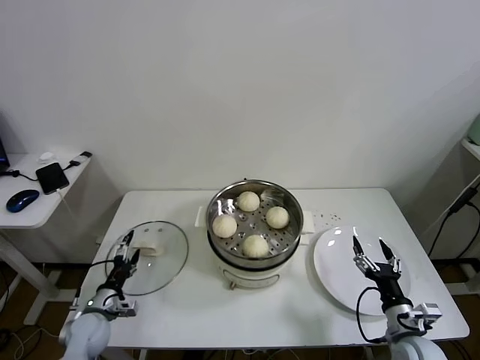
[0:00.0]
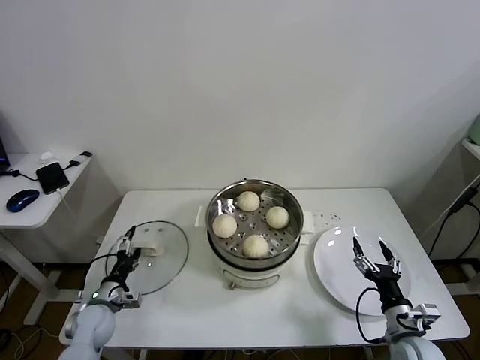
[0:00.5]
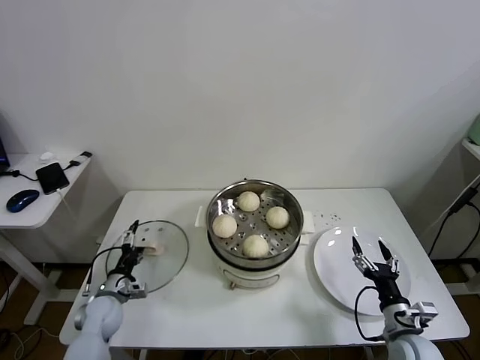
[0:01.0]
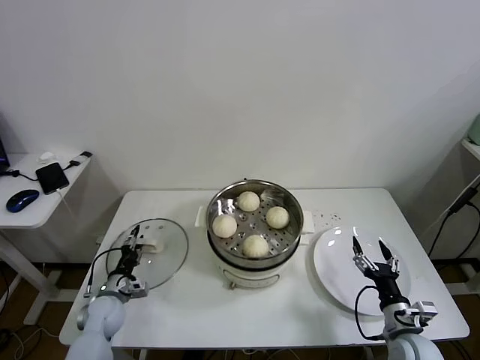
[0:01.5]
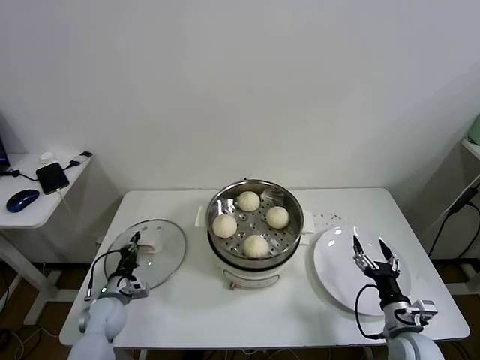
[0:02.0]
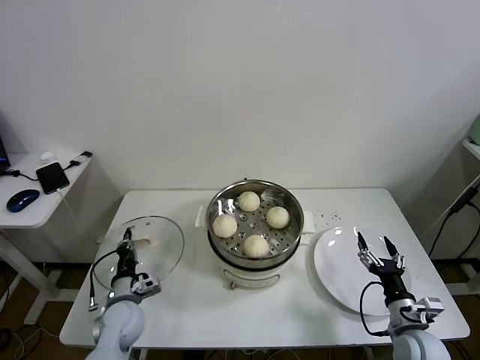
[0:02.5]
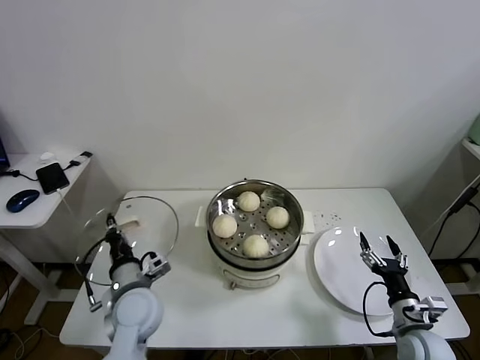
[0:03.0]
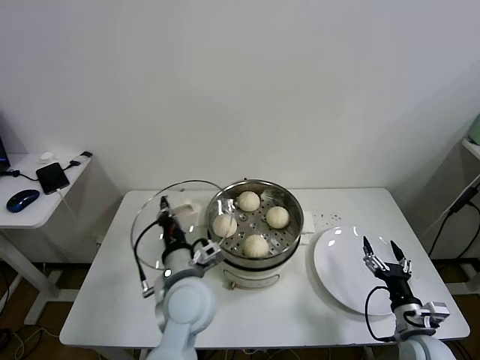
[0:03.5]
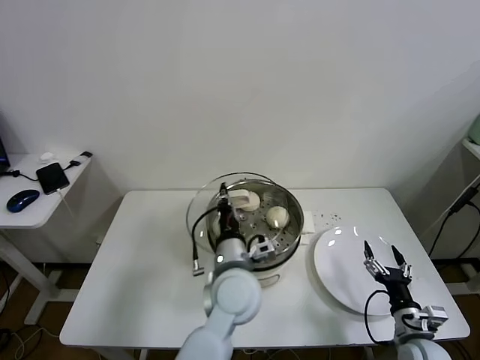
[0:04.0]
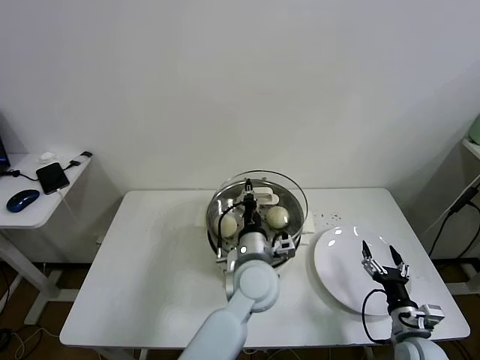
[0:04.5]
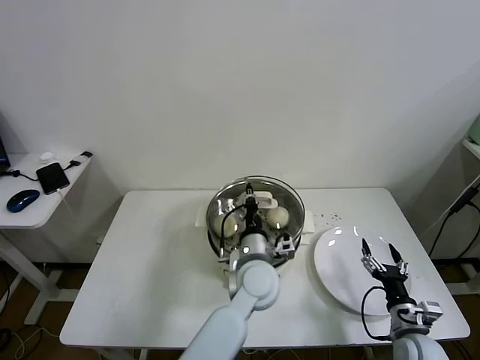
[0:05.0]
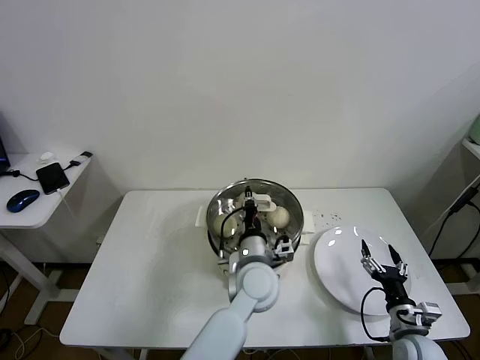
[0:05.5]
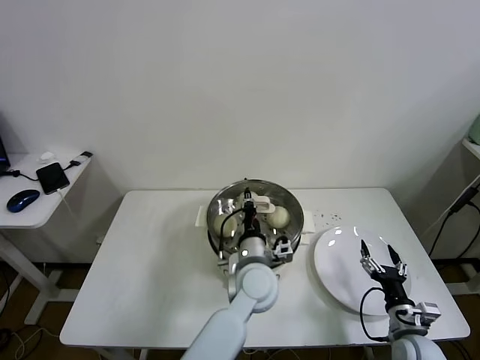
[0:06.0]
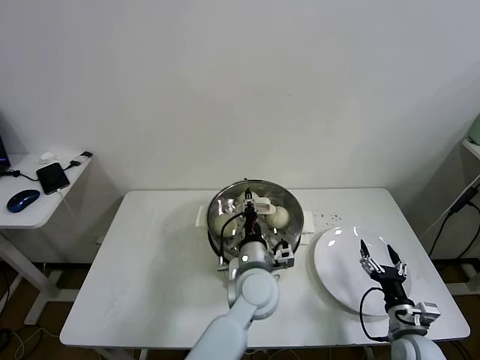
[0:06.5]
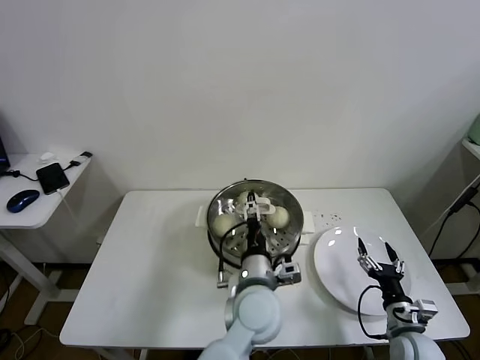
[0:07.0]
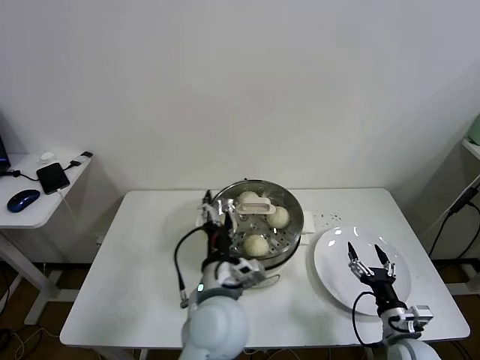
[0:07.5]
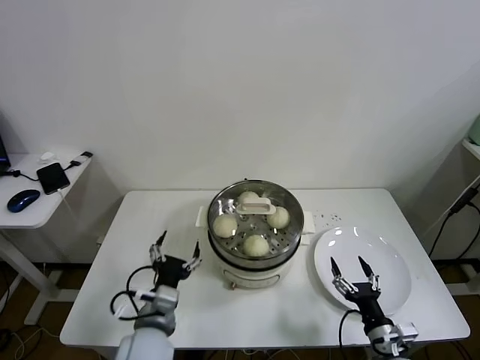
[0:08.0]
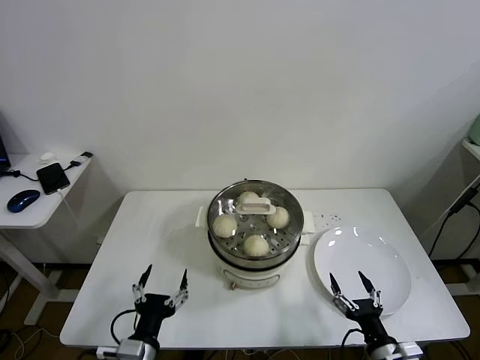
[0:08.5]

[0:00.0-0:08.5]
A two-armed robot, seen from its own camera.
Task of the whole recording: take steamed baozi put them in steamer.
Step, 0:02.0 to 0:06.5: Place the pot lid on the steamer with left gripper.
0:00.0 to 0:02.0: The left gripper changes place by about 5 cm, and closes.
0:02.0 to 0:04.0: The left gripper shifts roughly 40 cm to the right and upward.
0:04.0 to 0:06.5: The left gripper shifts approximately 5 cm downward.
0:06.5 to 0:08.5: The left gripper goes about 30 cm to the left and backward, and opens up. Meanwhile the right gripper is displaced backward and to the left by roughly 10 cm.

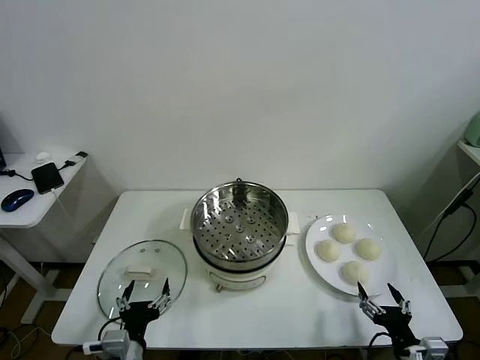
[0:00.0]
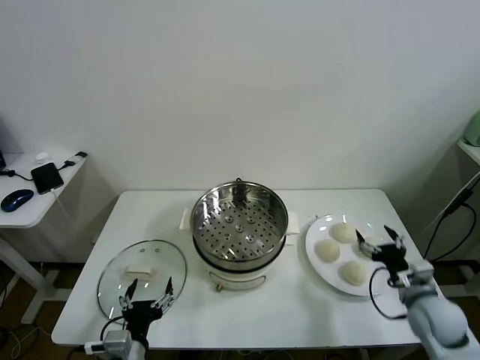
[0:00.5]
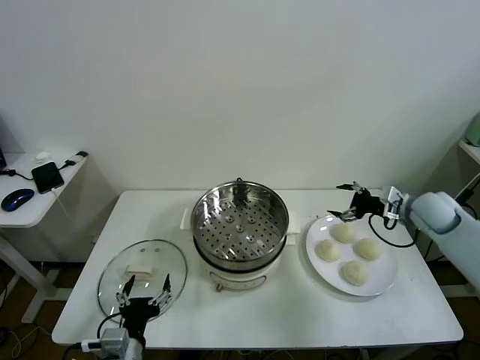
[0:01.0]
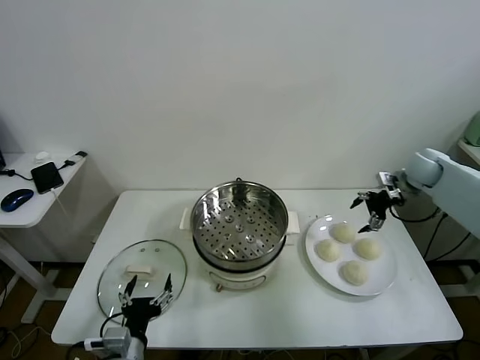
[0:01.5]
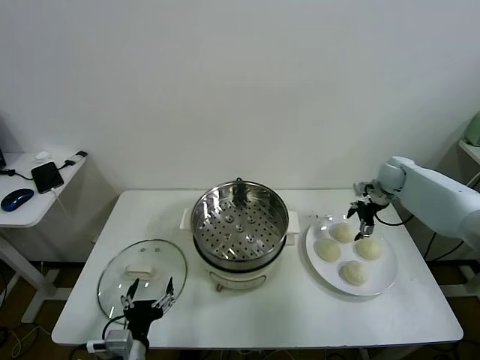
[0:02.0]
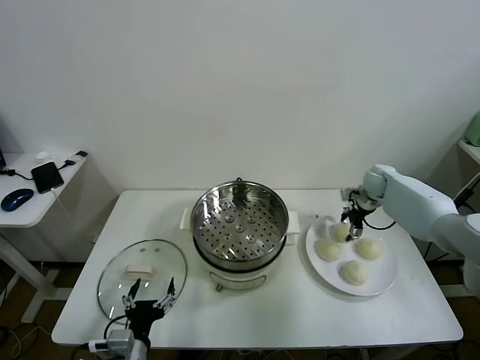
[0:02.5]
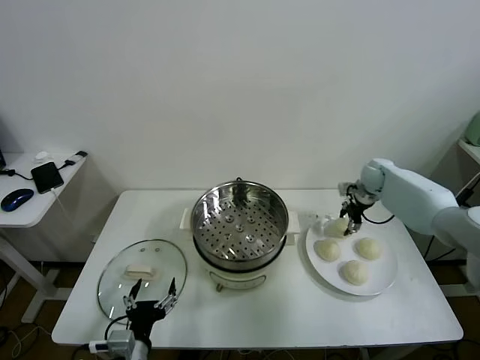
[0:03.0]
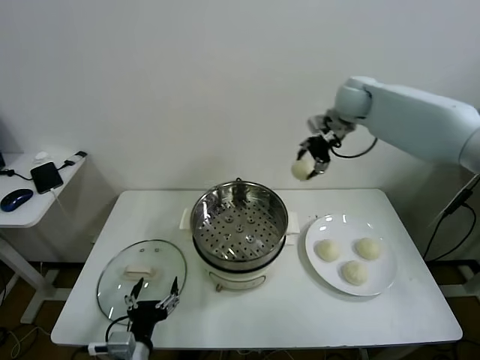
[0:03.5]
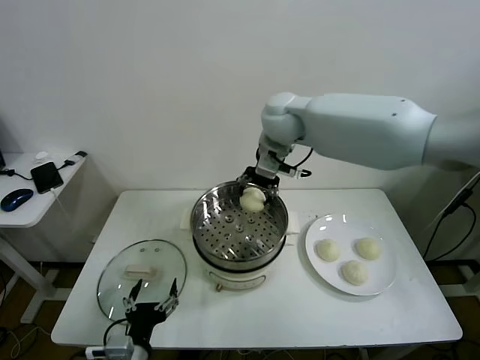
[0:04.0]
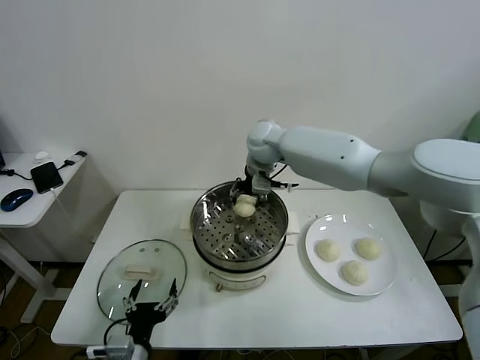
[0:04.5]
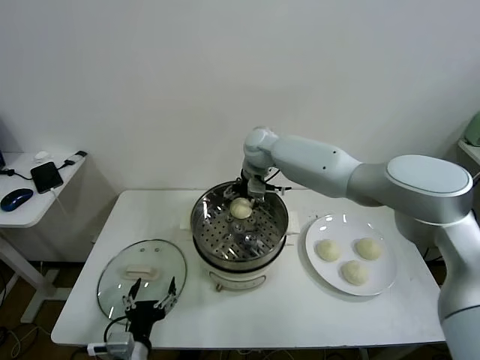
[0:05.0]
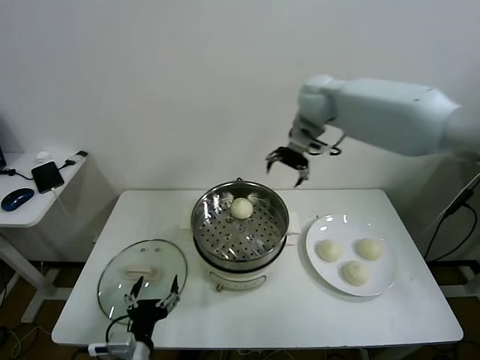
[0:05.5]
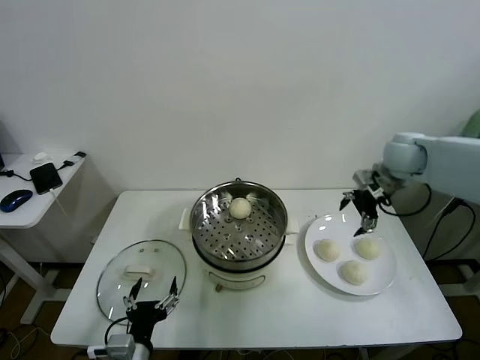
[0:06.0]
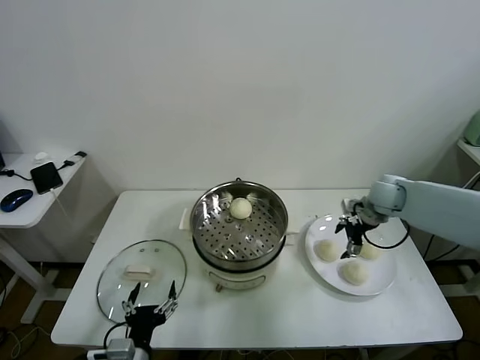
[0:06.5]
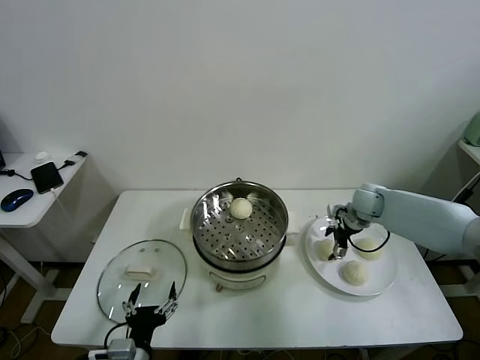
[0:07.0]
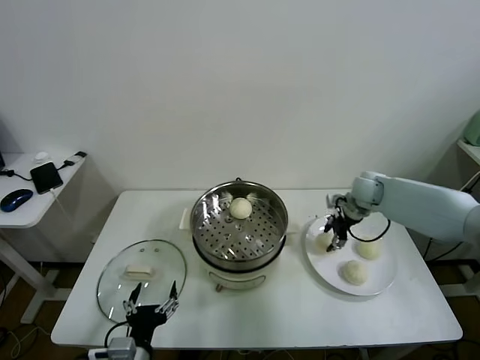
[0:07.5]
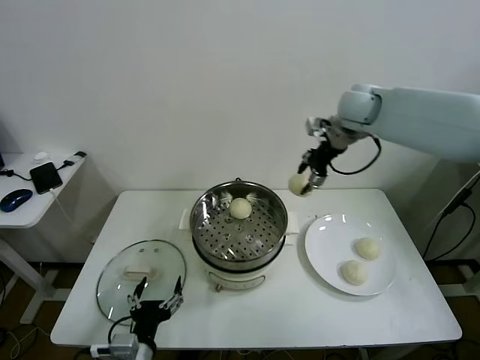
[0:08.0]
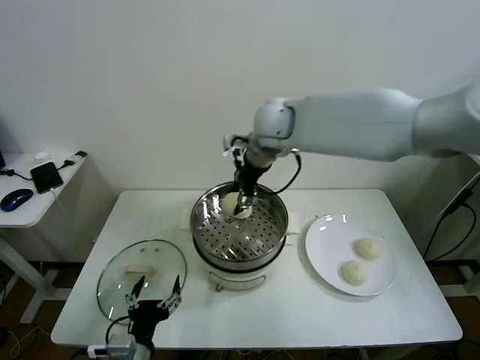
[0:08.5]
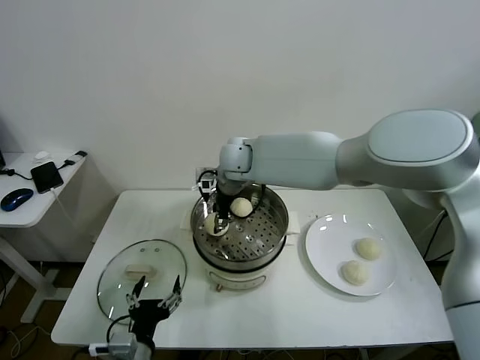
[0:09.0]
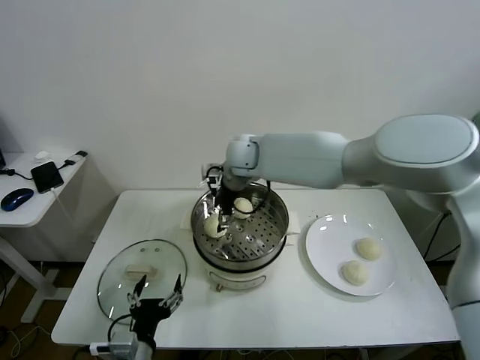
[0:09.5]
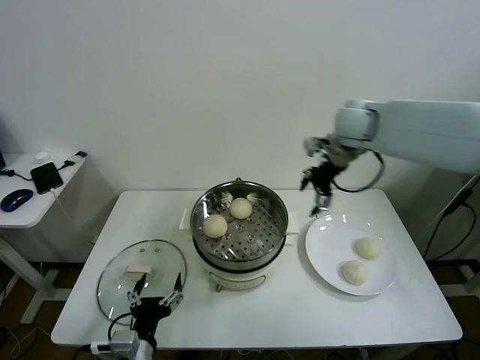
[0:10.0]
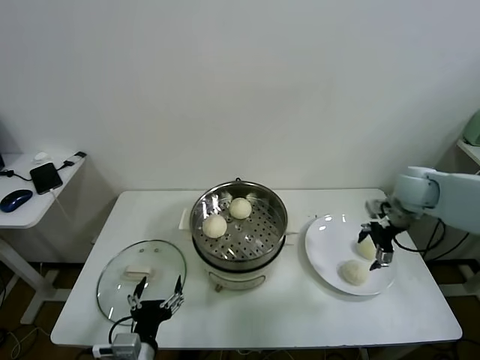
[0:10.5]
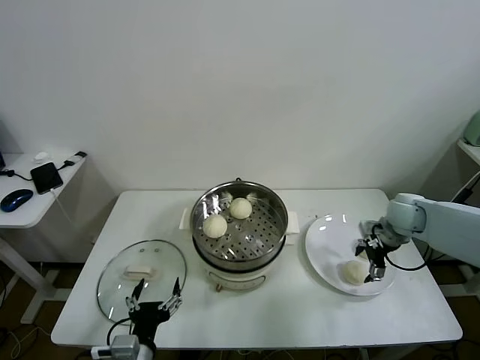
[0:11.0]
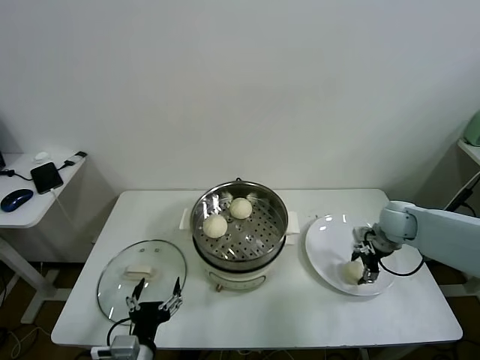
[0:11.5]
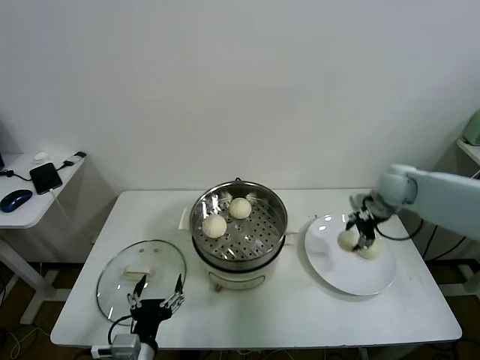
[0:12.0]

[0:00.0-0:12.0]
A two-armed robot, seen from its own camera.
Task of the whole recording: take steamed baozi put them in steamer.
Step, 0:00.0 to 0:02.5: Grasp the baozi in the plate with right gripper.
Step, 0:03.0 to 0:04.5: Place the baozi on the steamer with right gripper.
Step, 0:05.0 to 0:07.0: Grasp the baozi in the plate with right gripper.
Step, 0:07.5 to 0:09.0: Place the baozi on the steamer with right gripper.
Step, 0:09.5 to 0:11.5: Grasp the baozi in the plate with right gripper.
0:02.0 to 0:04.0: The right gripper is displaced to the left and upward by some 40 cm, and closes up.
0:04.0 to 0:06.0: The right gripper heads to the right, covering roughly 30 cm, and opens its fingers.
0:06.0 to 0:08.0: The right gripper shifts approximately 20 cm to the left and upward, and closes.
0:08.0 to 0:10.0: The right gripper heads downward, covering about 5 cm, goes to the left and returns, about 25 cm each way, and opens its fingers.
0:10.0 to 0:12.0: The right gripper shifts about 15 cm downward and to the right, and closes up.

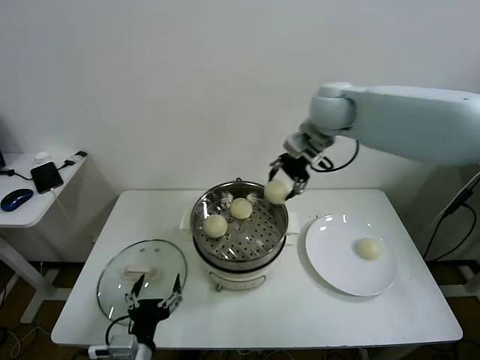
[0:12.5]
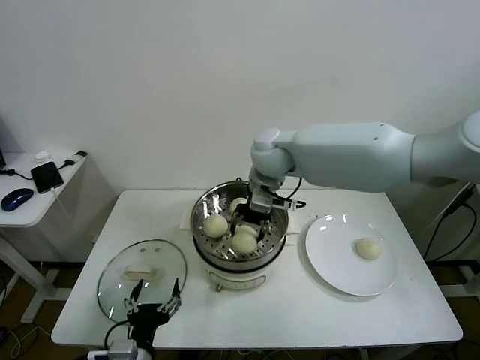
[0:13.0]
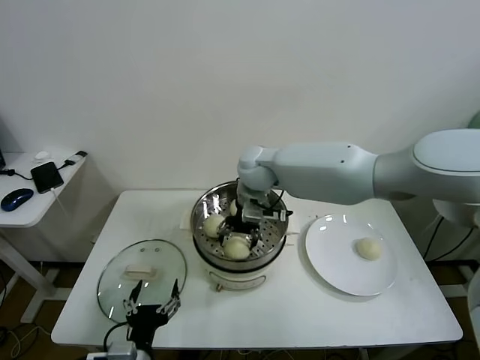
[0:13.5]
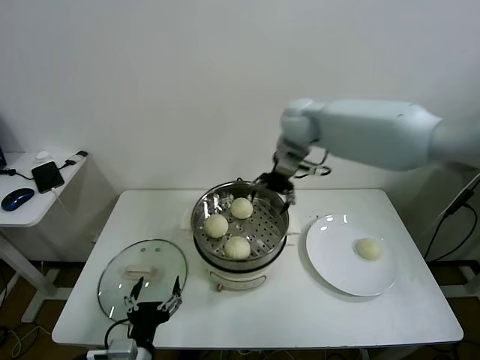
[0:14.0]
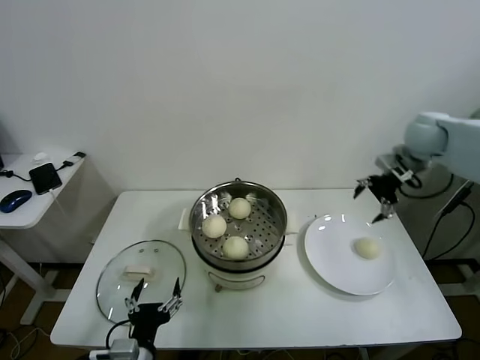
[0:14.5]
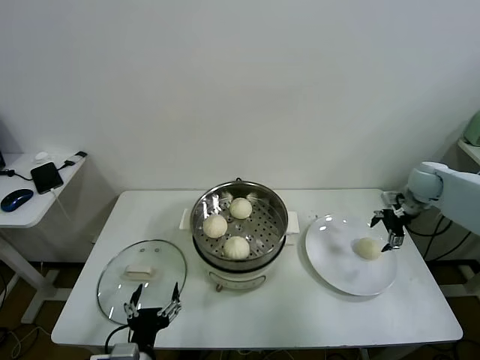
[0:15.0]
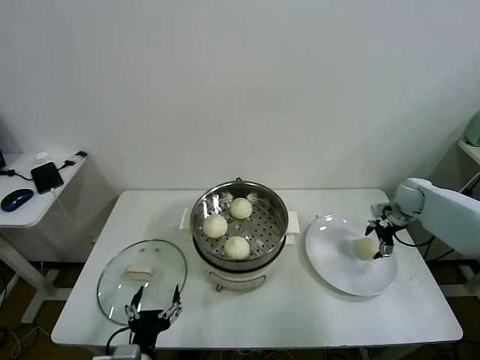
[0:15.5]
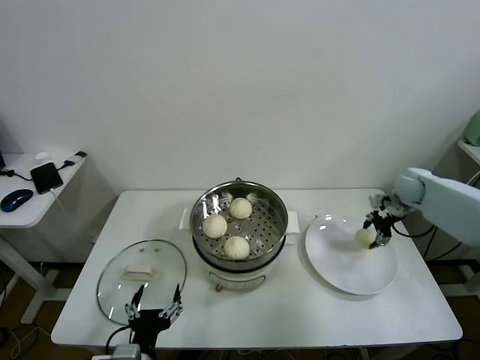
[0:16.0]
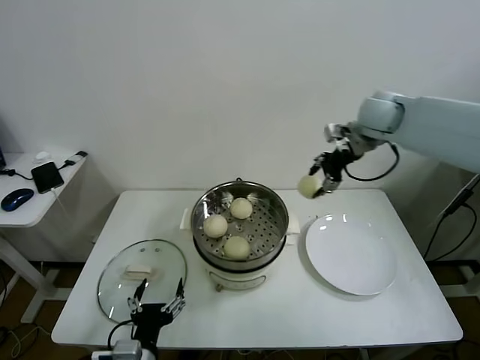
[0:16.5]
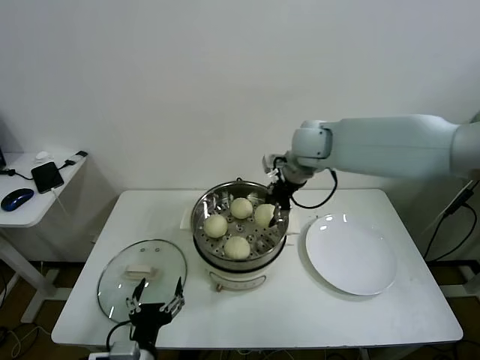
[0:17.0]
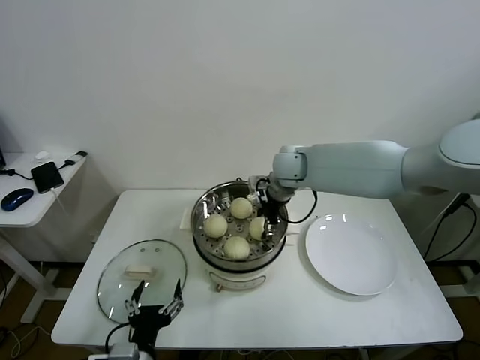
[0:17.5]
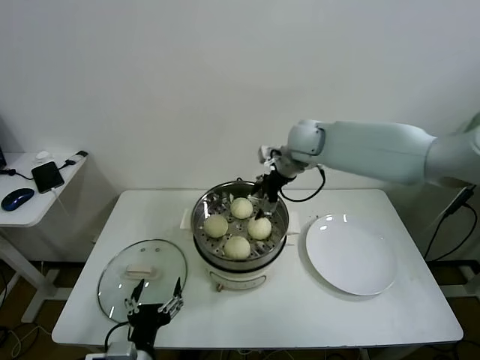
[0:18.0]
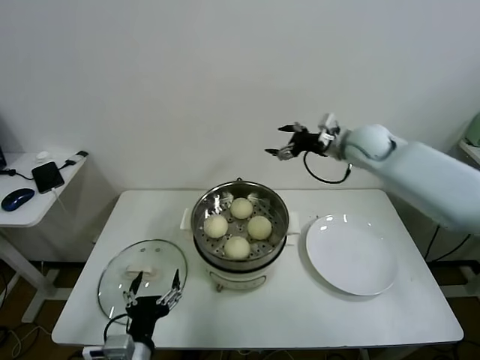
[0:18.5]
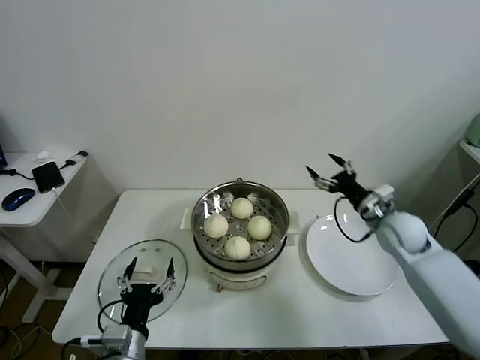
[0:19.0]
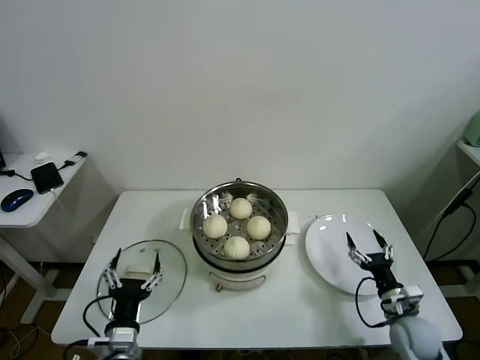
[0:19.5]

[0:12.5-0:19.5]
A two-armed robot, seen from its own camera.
Task of the whole recording: take steamed baozi put them in steamer.
Step, 0:12.5 to 0:13.5: Place the baozi on the steamer with right gripper.
Step, 0:14.0 to 0:15.5: Grasp the baozi in the plate with right gripper.
Step, 0:16.0 to 0:17.5: Place the baozi on the steamer with right gripper.
0:12.5 to 0:14.5: The right gripper goes some 25 cm to the right, and opens its fingers.
0:14.5 to 0:16.0: The right gripper goes some 15 cm downward, and closes up.
0:16.0 to 0:17.5: The right gripper heads to the left, covering about 35 cm.
0:17.5 to 0:19.5: The left gripper changes place by some 5 cm; the right gripper goes roughly 50 cm downward, backward and to the right, and opens up.
